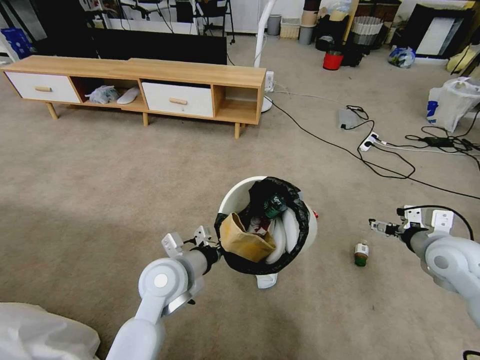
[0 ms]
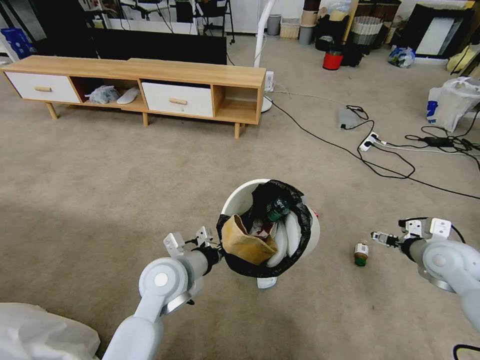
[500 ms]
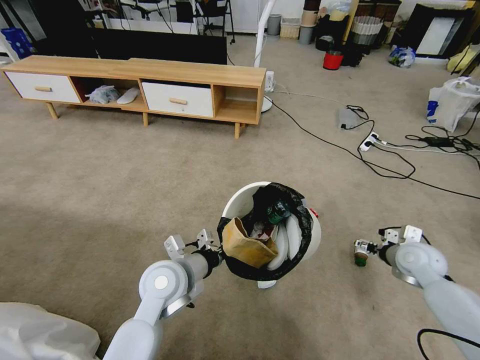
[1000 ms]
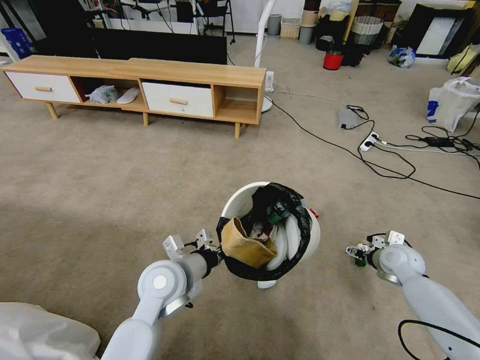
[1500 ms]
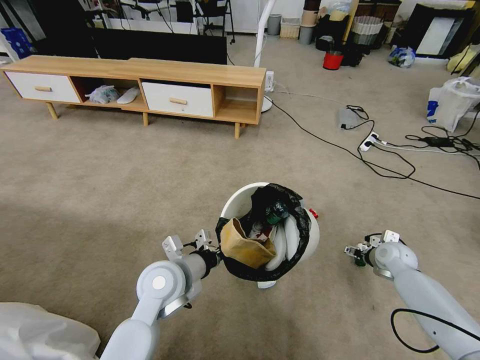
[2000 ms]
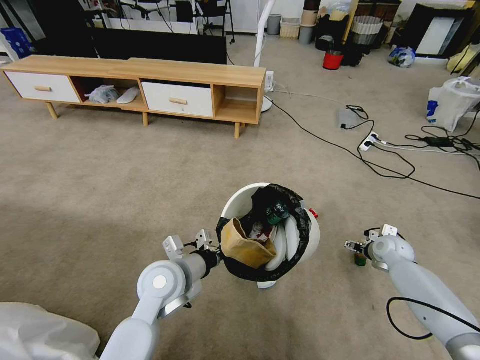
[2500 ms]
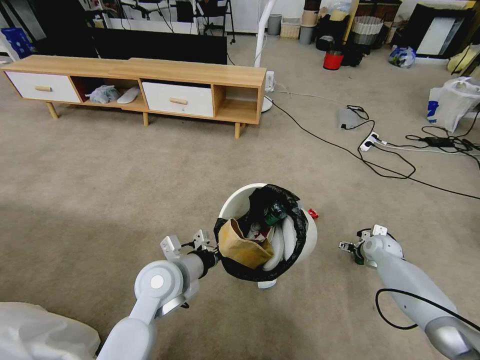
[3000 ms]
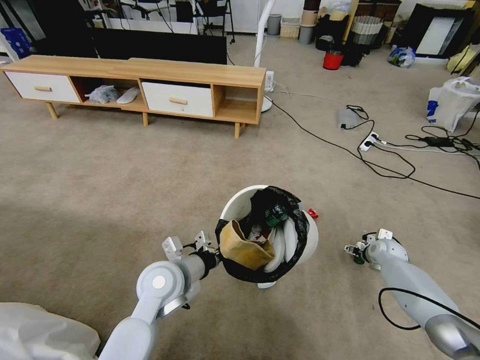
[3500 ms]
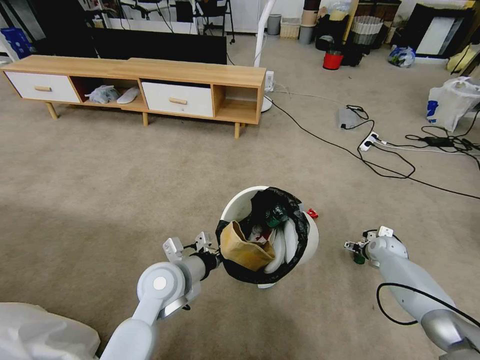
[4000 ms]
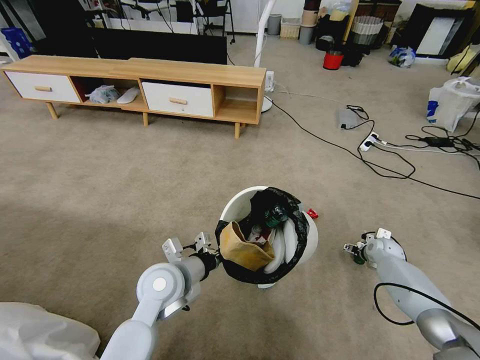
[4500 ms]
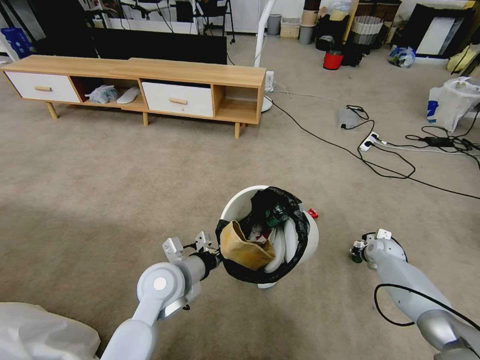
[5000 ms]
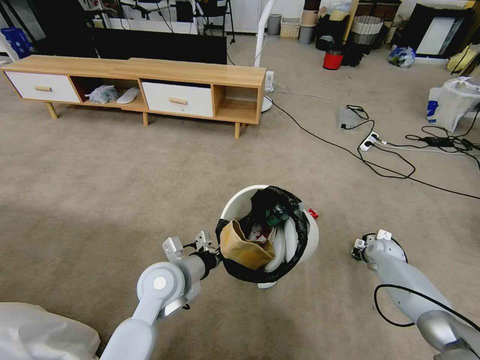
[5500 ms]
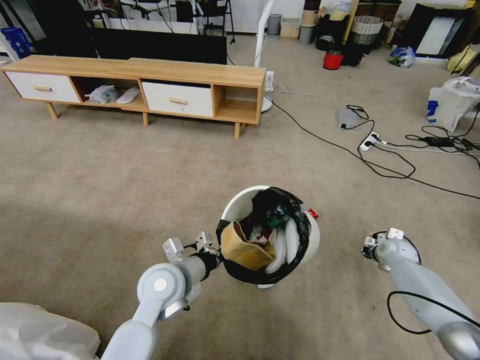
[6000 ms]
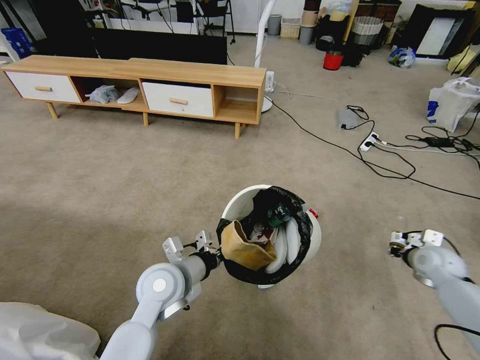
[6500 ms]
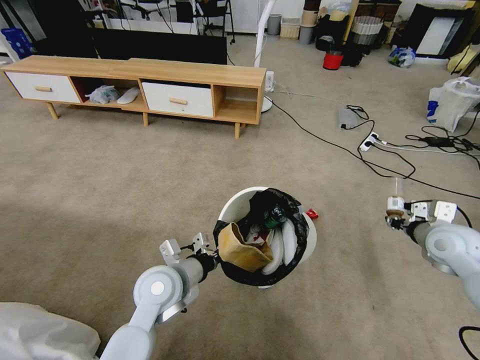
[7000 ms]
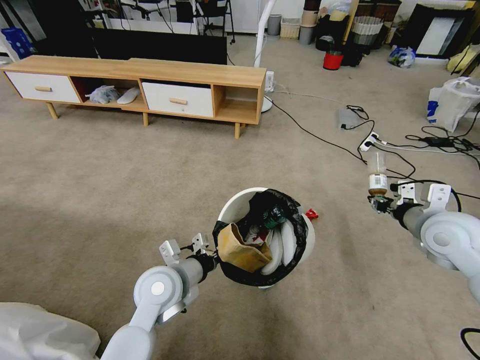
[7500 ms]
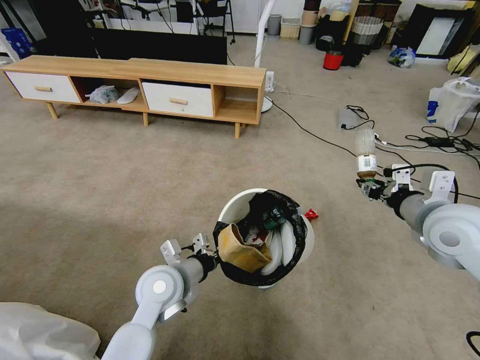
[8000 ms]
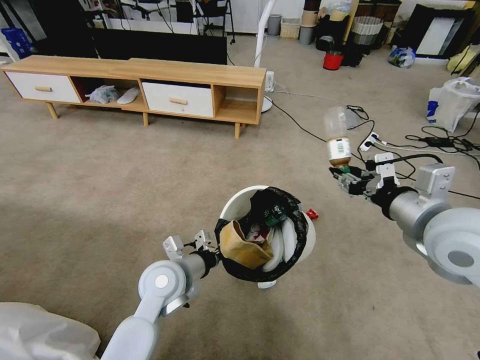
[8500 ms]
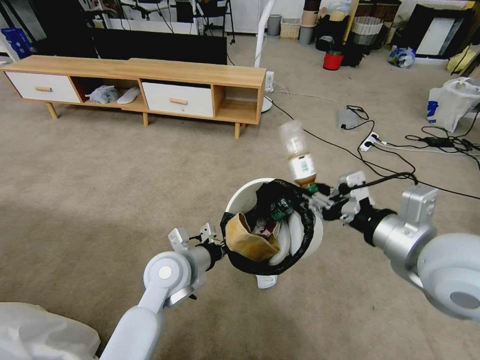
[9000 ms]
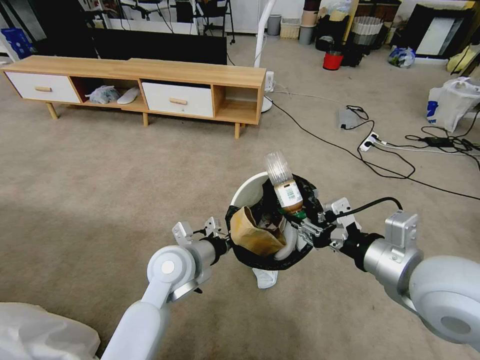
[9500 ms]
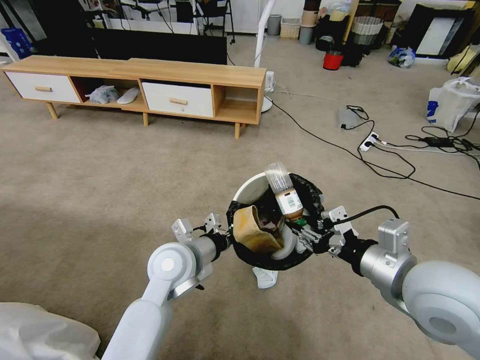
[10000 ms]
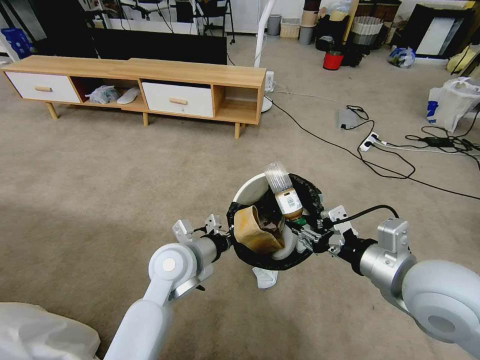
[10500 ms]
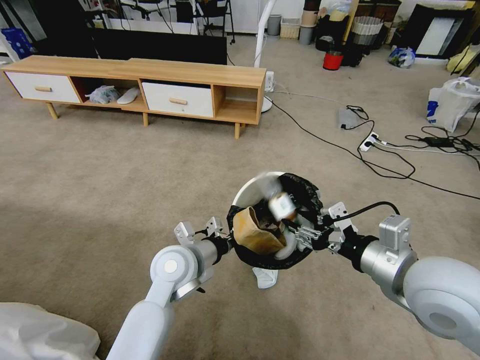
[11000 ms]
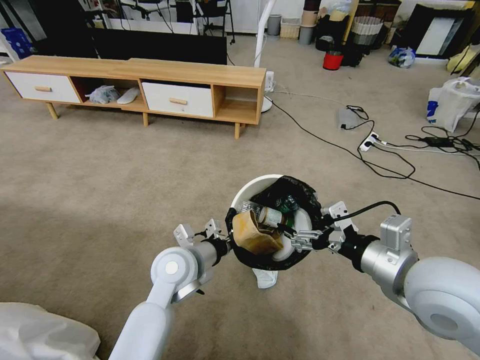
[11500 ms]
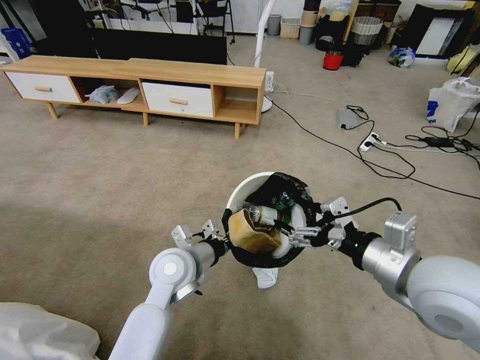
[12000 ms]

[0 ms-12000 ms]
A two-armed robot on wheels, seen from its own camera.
Task of the whole recording: Pick up the trash bin and place the garbage on the floor into it.
0 ms to 2000 ms: The right gripper moves downward and forward, roughly 20 cm.
2000 ms to 4000 ms: The right gripper moves forward, some 5 cm.
4000 ms to 6000 ms: The right gripper closes up.
6000 ms to 8000 ms: The right gripper heads upward and backward, covering about 30 cm.
8000 ms to 10000 ms: The left gripper shifts by some 5 cm. Meanwhile the right gripper travels backward and to the left by about 15 cm.
10000 ms to 12000 ms: The right gripper opens up.

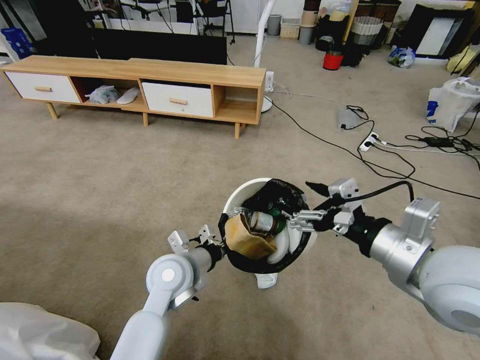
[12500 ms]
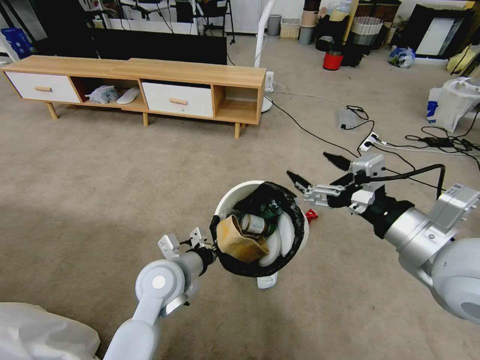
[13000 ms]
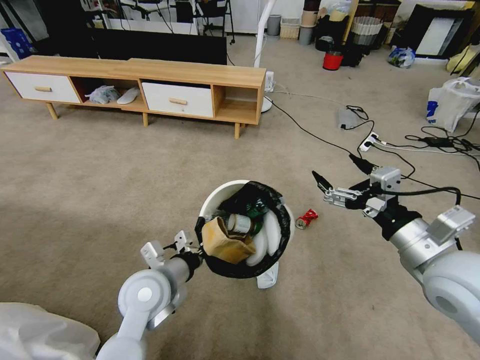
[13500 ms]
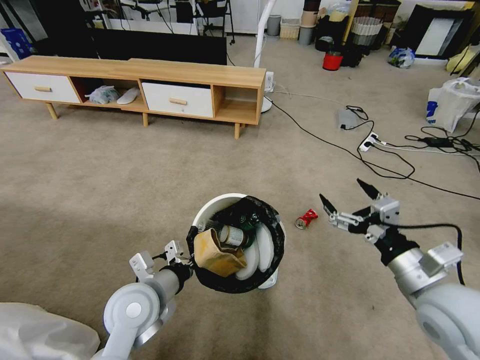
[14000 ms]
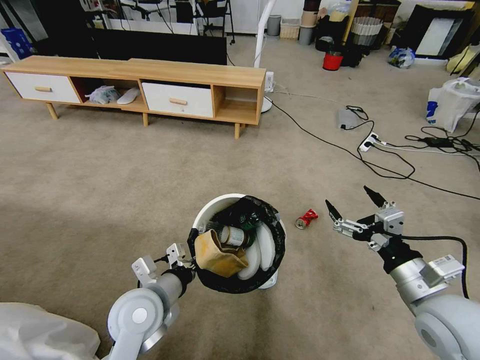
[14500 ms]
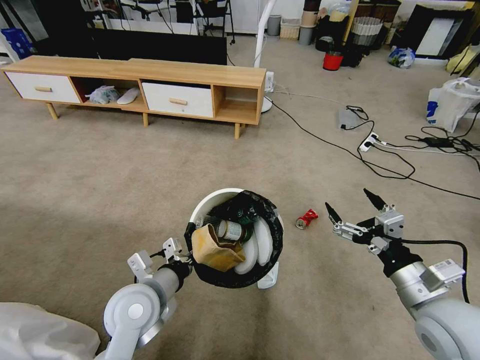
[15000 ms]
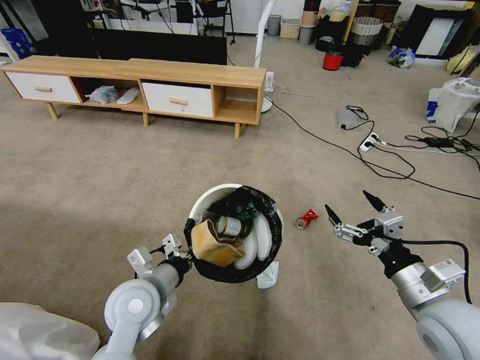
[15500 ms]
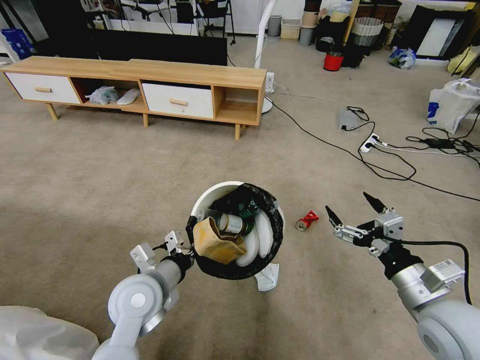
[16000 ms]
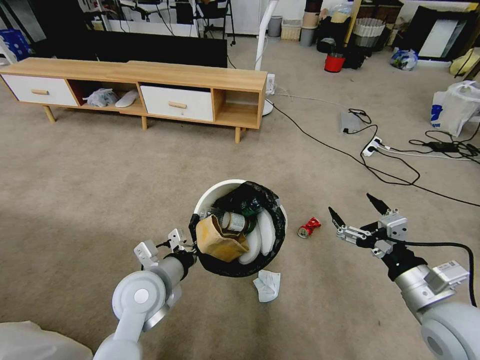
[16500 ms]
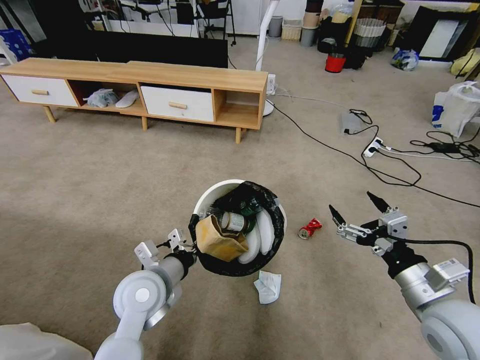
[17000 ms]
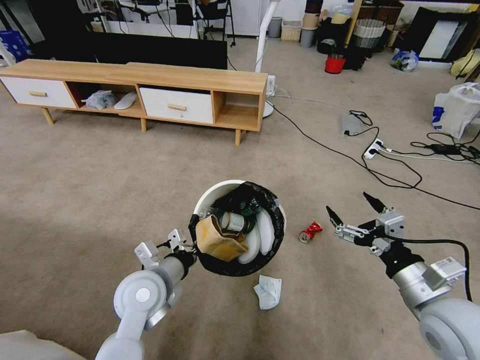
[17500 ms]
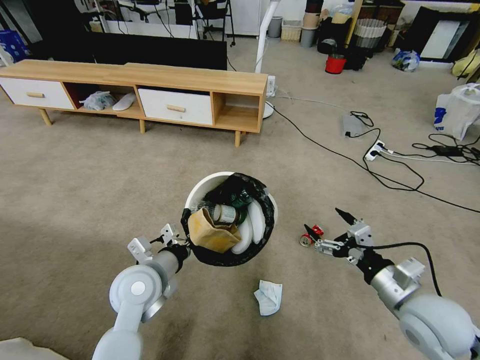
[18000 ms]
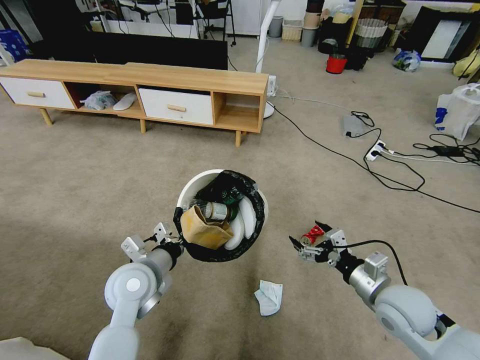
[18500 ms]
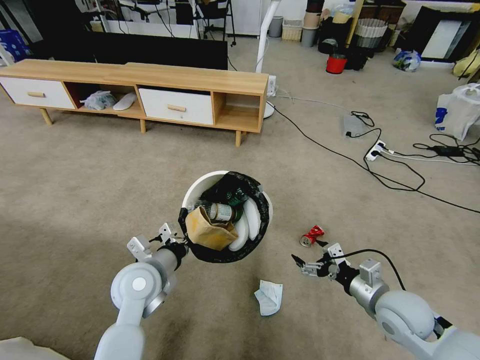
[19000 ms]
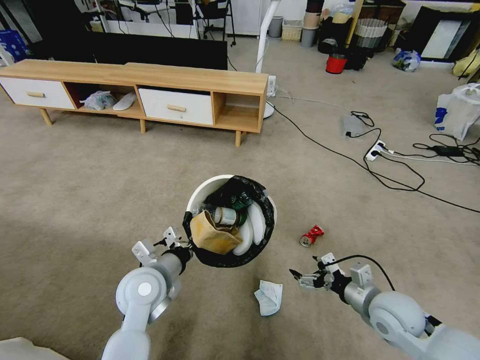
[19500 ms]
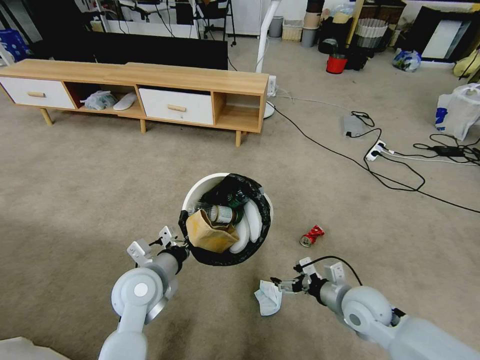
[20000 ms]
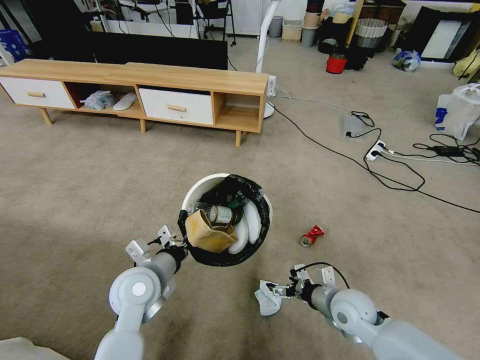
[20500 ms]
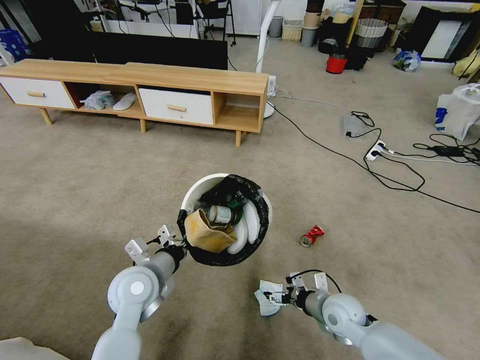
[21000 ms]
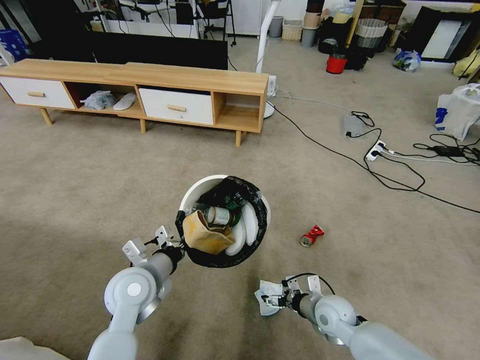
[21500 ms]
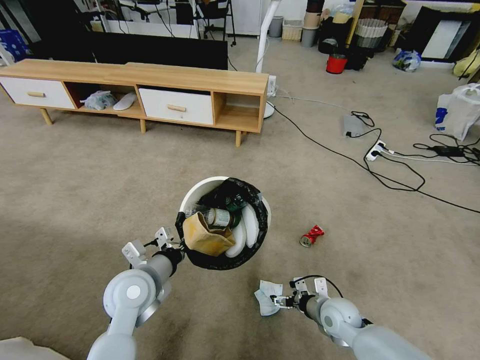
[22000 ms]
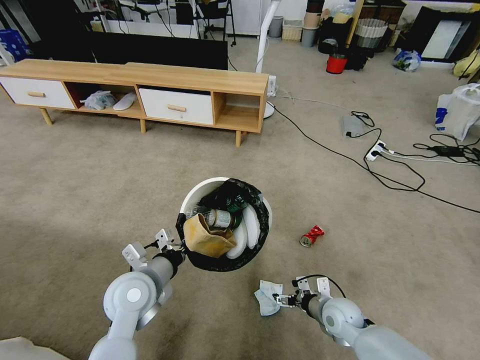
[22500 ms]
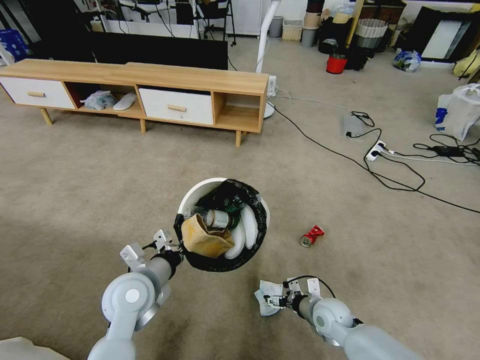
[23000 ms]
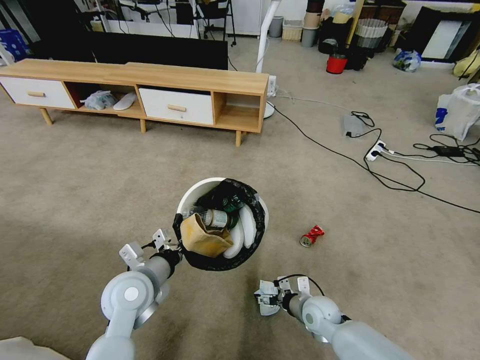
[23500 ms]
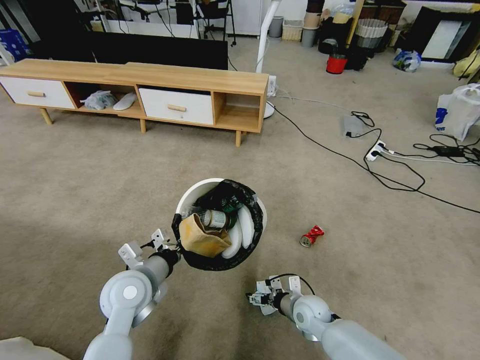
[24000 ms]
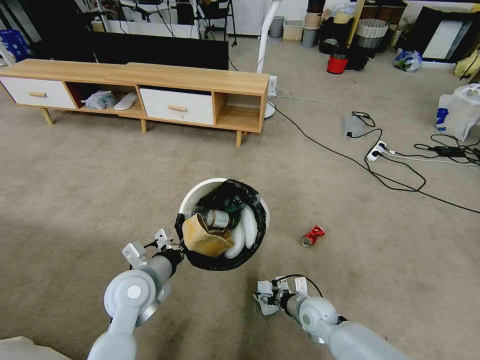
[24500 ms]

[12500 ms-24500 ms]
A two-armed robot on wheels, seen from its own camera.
Task of the whole recording: Pick up the trash bin and place the garbage on the floor into it.
12500 ms to 14500 ms: The right gripper is displaced downward and to the right by roughly 15 cm, while the left gripper travels backward and to the left by some 10 cm.
16500 ms to 18500 ms: The right gripper is displaced downward and forward by approximately 10 cm.
18500 ms to 20500 ms: The right gripper goes approximately 10 cm downward and to the left.
20500 ms to 22500 ms: The right gripper moves downward, roughly 10 cm.
22500 ms to 24500 ms: The right gripper is displaced to the left by approximately 5 cm.

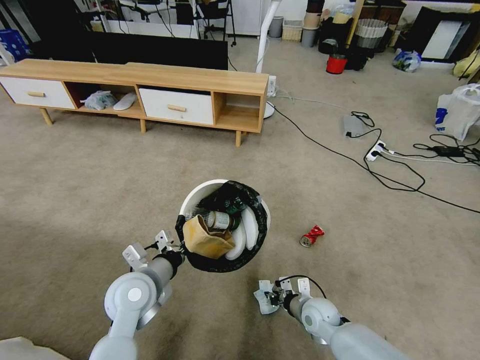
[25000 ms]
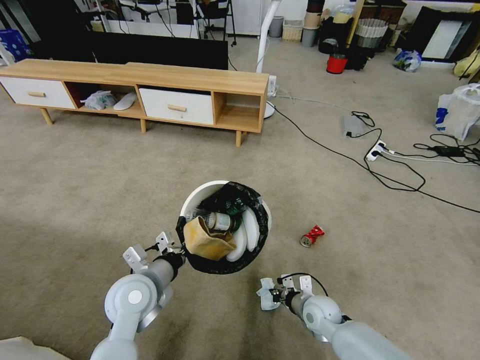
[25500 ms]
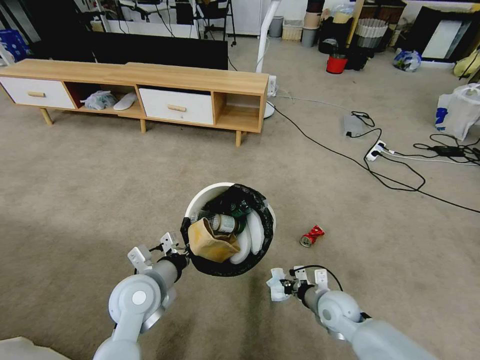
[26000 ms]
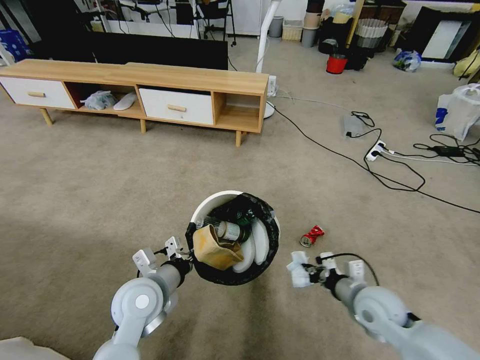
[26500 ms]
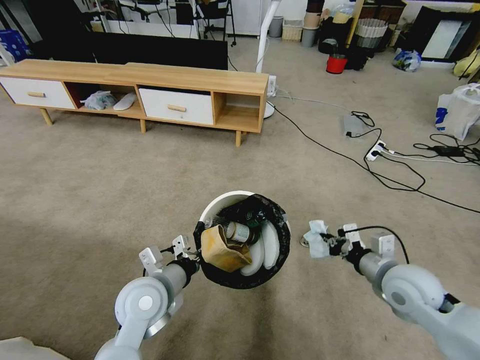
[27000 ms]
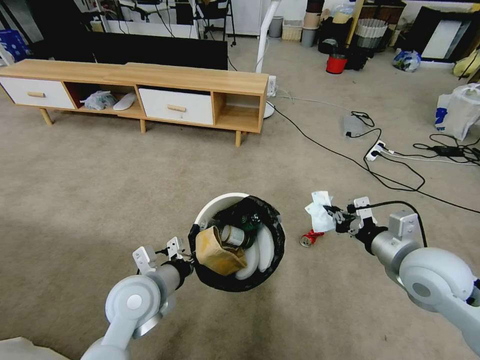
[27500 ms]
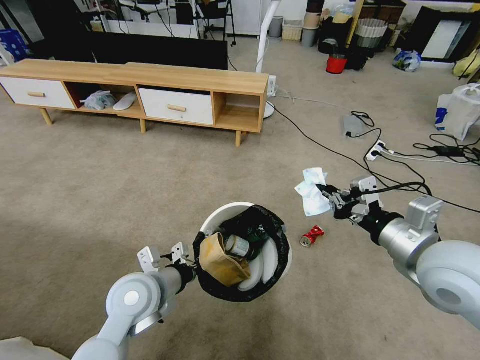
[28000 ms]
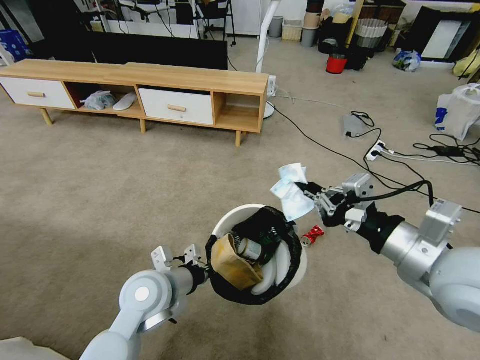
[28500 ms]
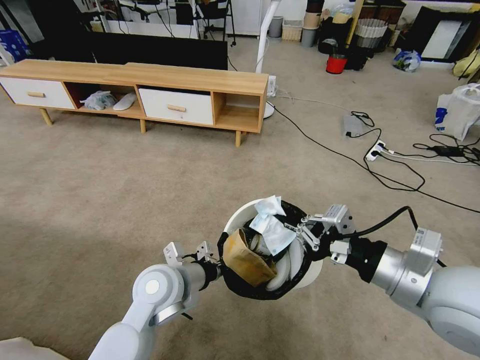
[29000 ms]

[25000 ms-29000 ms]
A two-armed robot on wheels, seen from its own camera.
Task of the whole recording: Pick up the trash bin and place the garbage on the floor into it.
25000 ms to 27000 ms: The right gripper shifts some 25 cm upward and to the right.
27000 ms to 29000 ms: The right gripper goes about 15 cm upward, backward and to the left.
